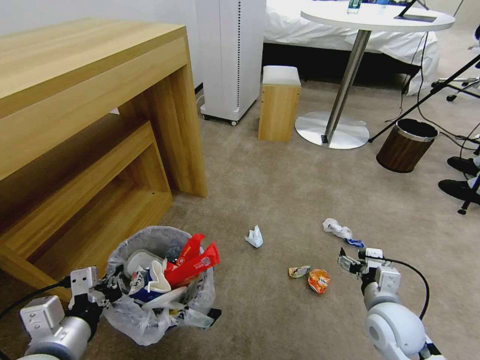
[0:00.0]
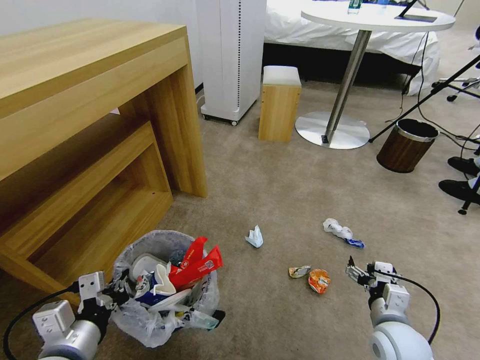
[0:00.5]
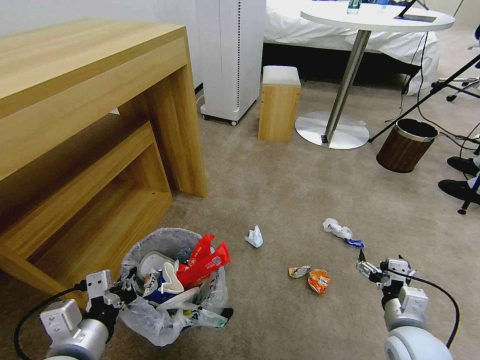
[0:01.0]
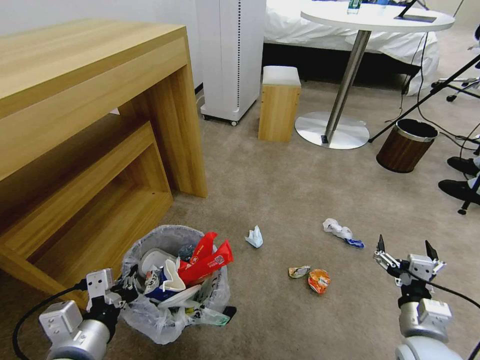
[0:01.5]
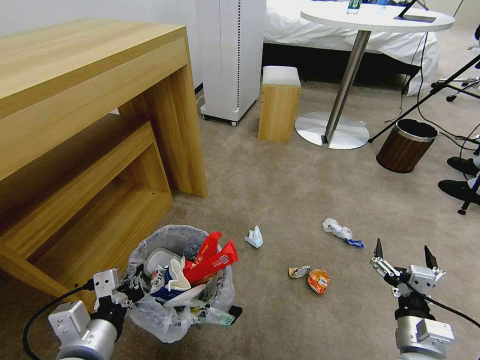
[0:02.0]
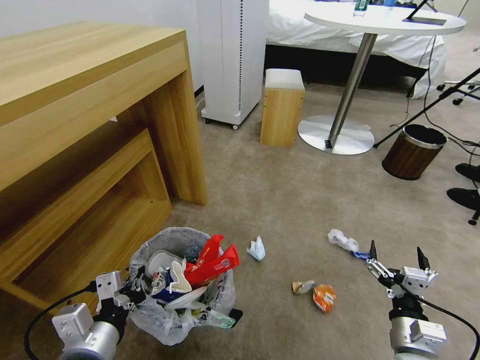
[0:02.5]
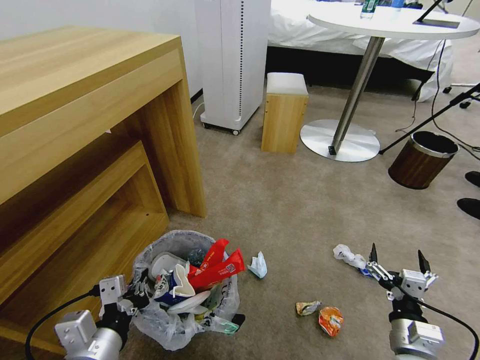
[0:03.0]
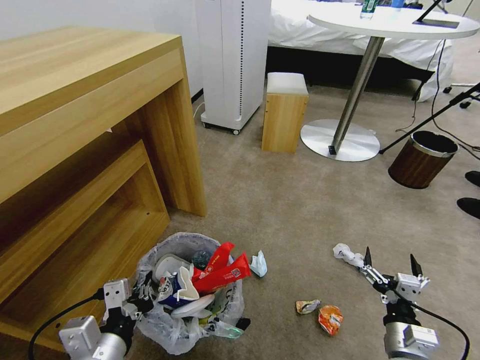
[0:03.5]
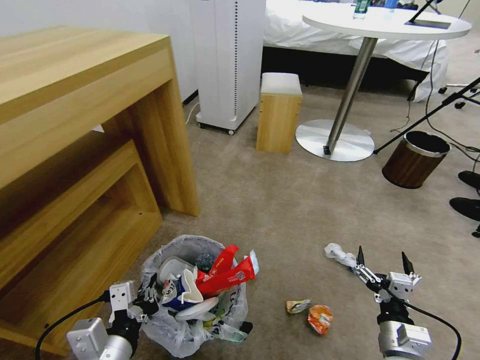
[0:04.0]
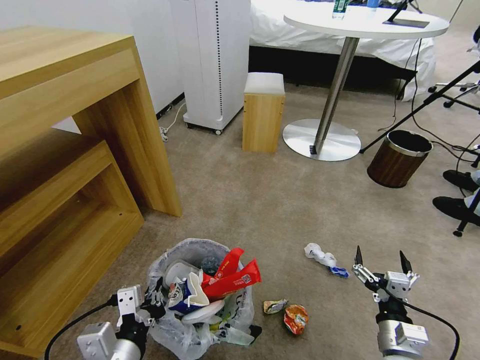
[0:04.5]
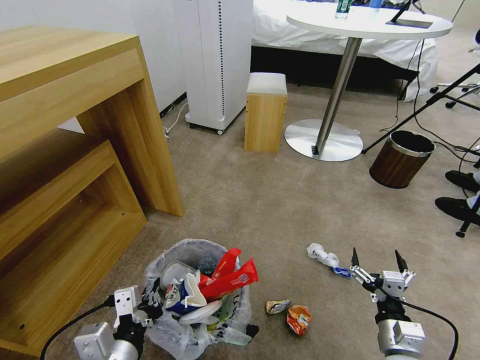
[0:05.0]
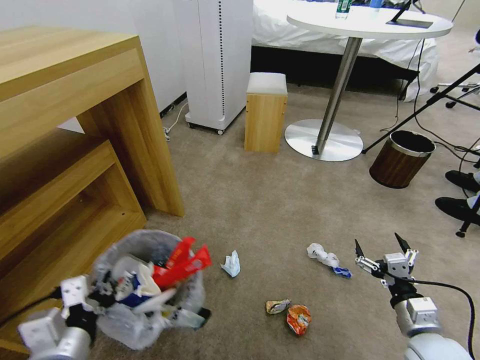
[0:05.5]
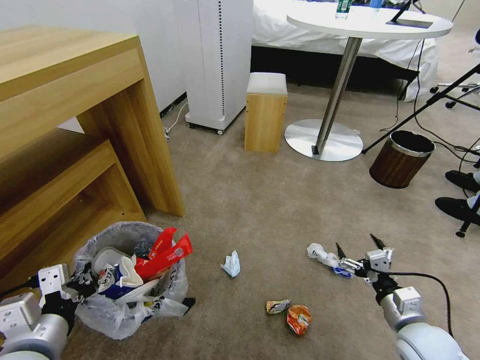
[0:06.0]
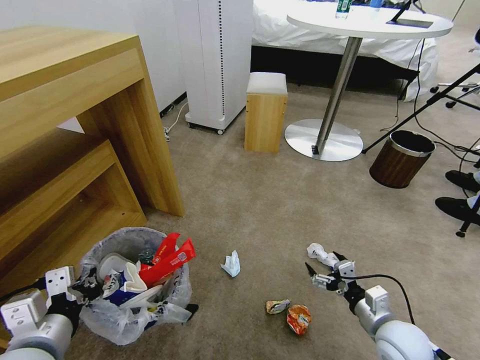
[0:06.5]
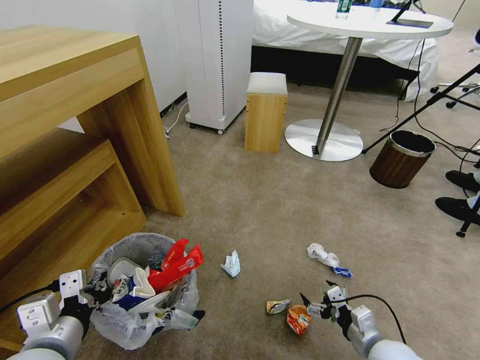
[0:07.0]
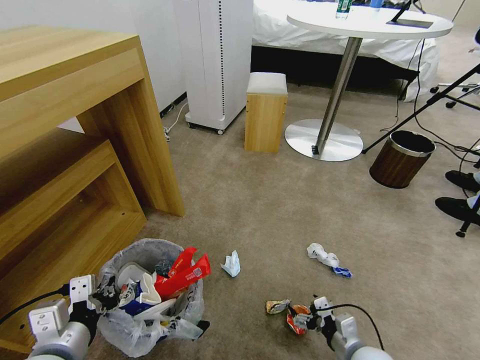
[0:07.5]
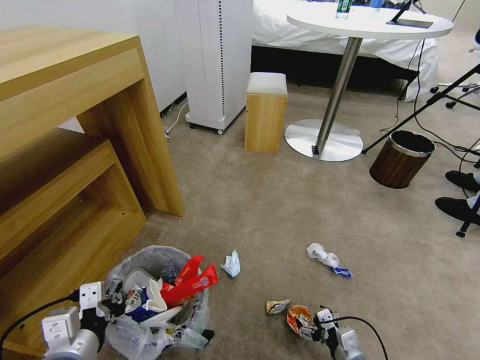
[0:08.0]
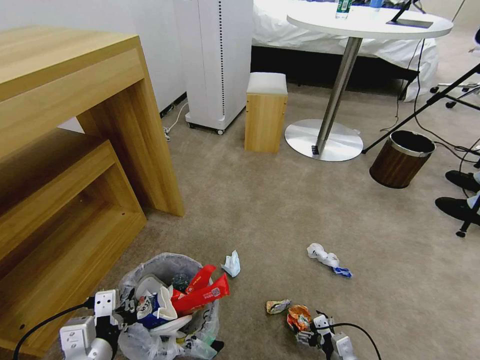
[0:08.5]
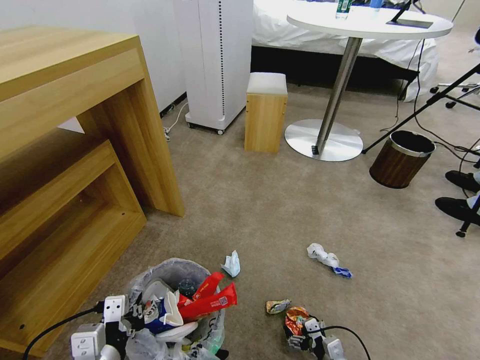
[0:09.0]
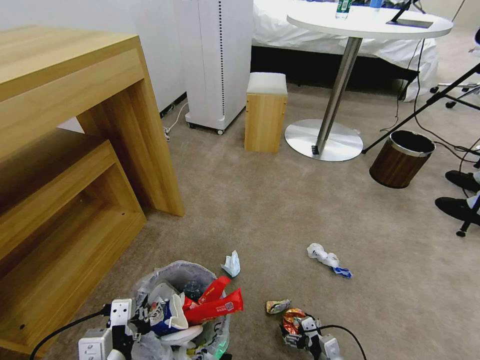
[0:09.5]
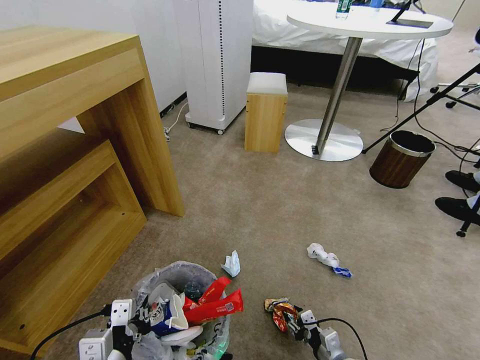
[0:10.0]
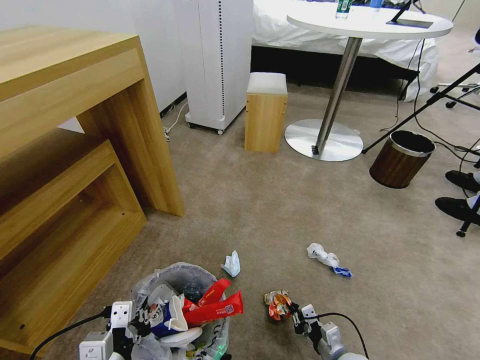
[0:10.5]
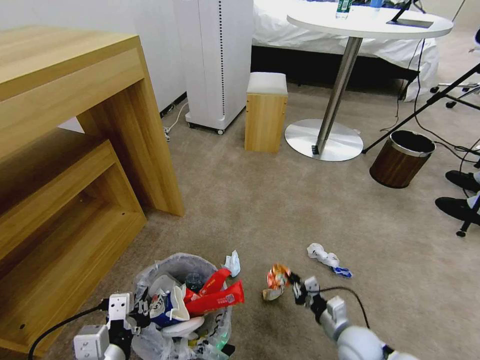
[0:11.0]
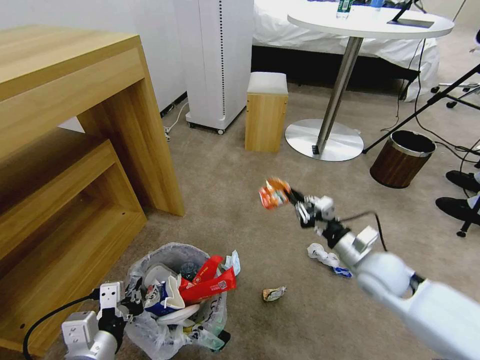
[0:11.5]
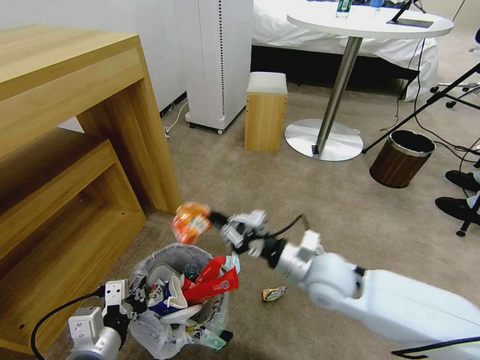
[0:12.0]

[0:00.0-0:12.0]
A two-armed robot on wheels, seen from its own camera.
Task of the whole recording: Pick up the trash bin and place the garbage on the floor into it.
0:00.0 to 0:02.0: The right gripper goes roughly 10 cm backward.
0:04.0 to 0:06.0: The left gripper heads to the left, covering about 10 cm; the right gripper moves forward, roughly 5 cm.
0:06.0 to 0:08.0: The right gripper is displaced downward by some 15 cm. The left gripper ends up about 5 cm from where it was.
0:08.0 to 0:10.0: The right gripper closes up. Meanwhile the left gripper moves about 5 cm.
0:10.0 to 0:12.0: The right gripper travels upward and forward by roughly 30 cm, and closes up.

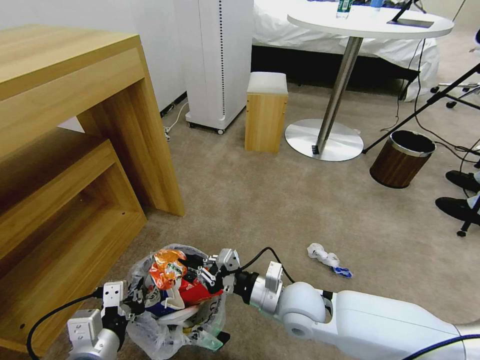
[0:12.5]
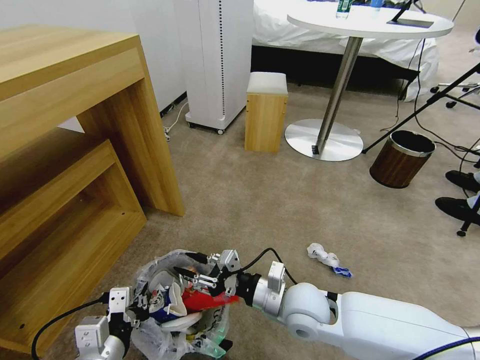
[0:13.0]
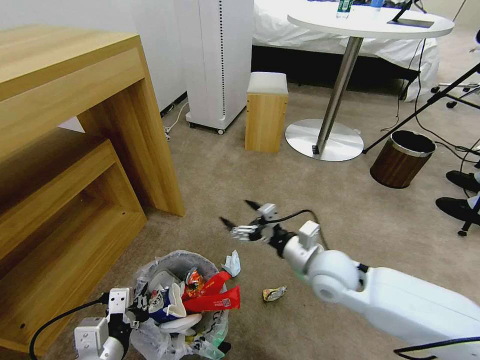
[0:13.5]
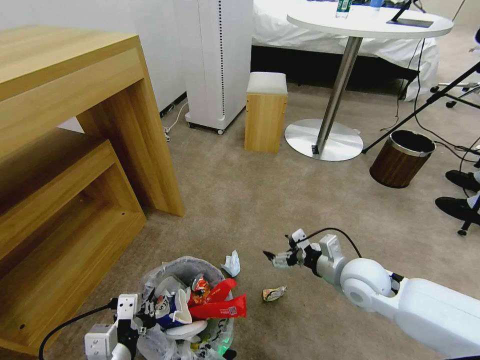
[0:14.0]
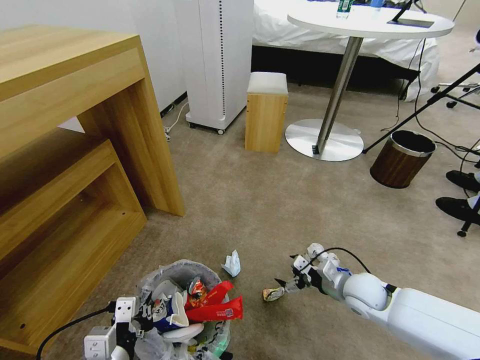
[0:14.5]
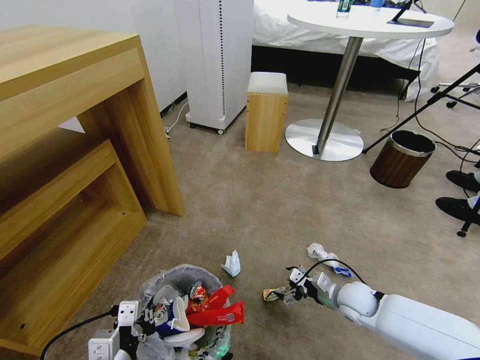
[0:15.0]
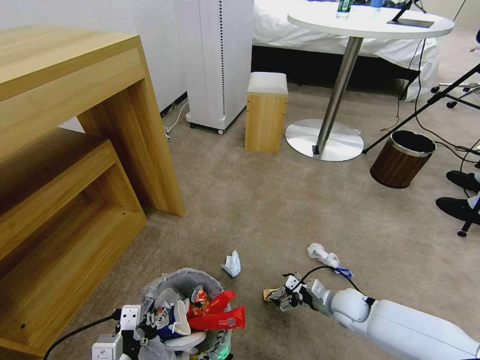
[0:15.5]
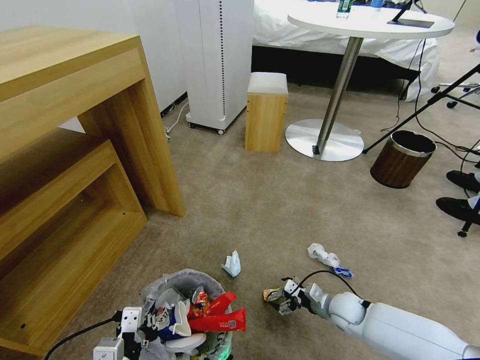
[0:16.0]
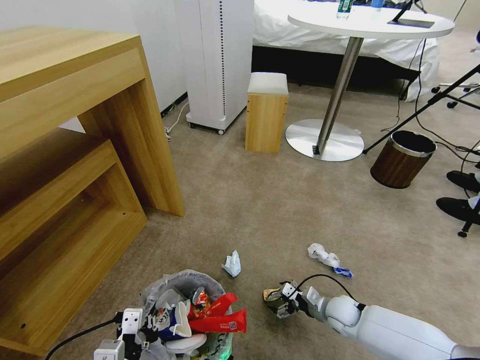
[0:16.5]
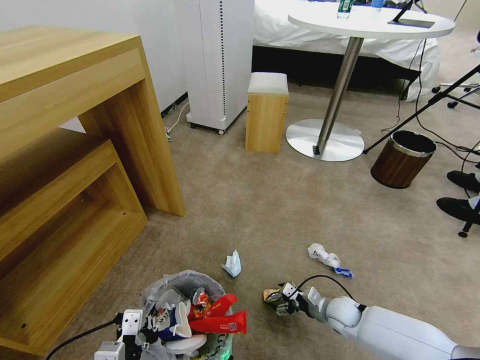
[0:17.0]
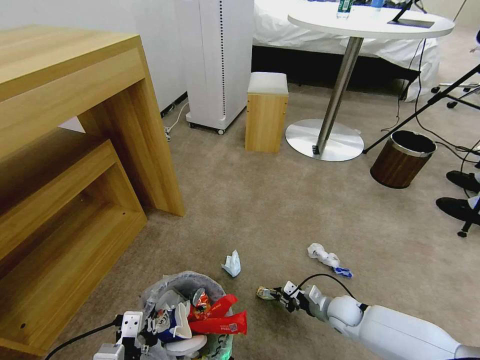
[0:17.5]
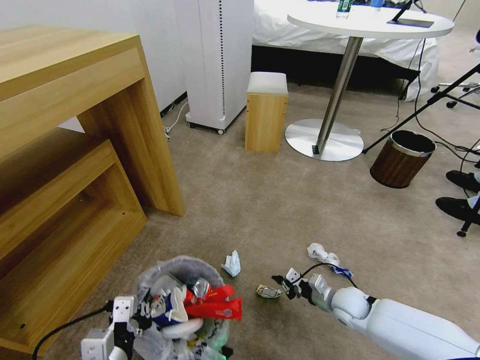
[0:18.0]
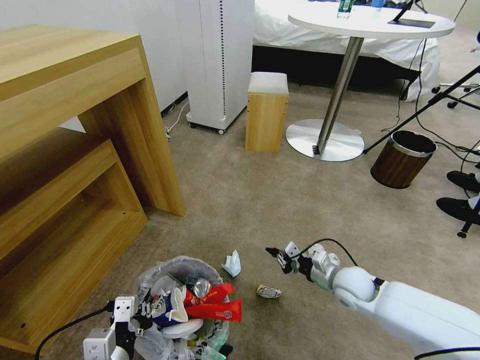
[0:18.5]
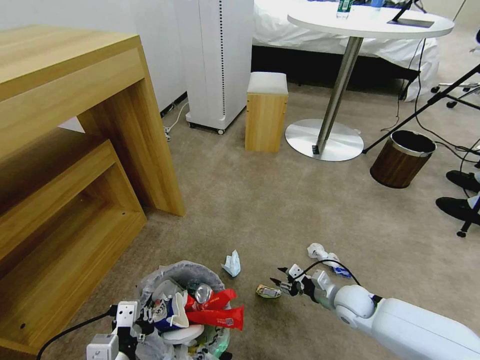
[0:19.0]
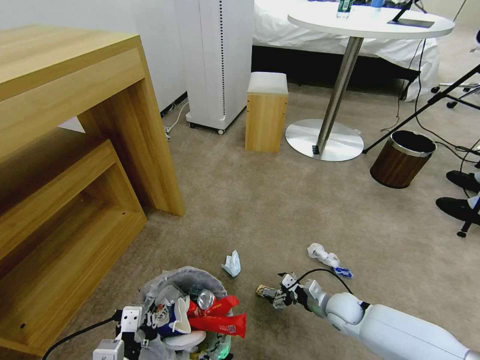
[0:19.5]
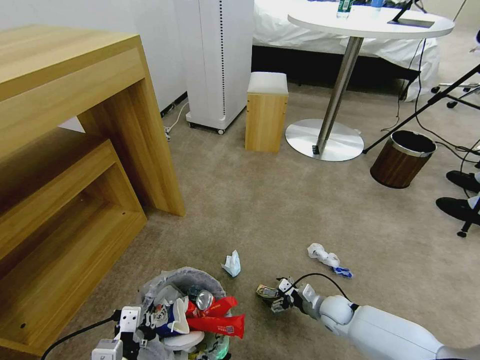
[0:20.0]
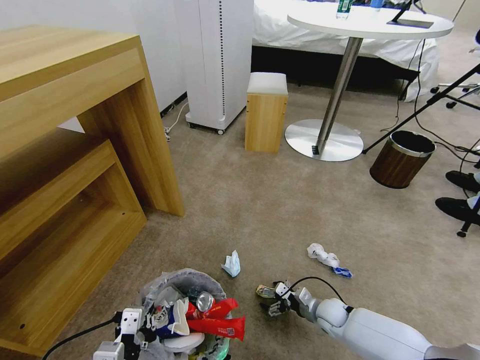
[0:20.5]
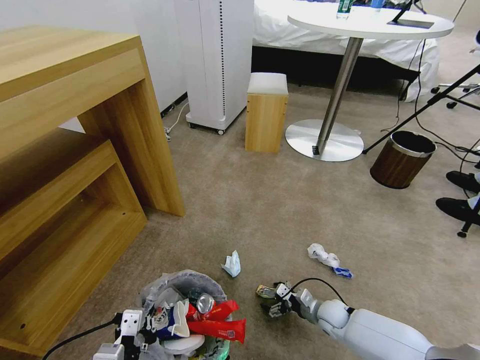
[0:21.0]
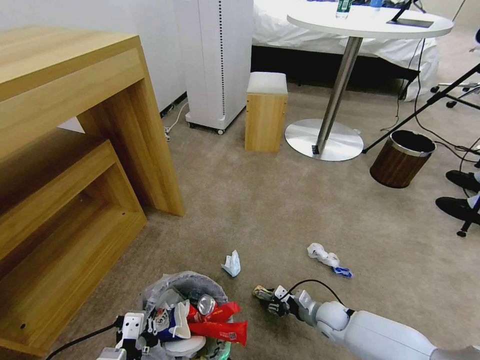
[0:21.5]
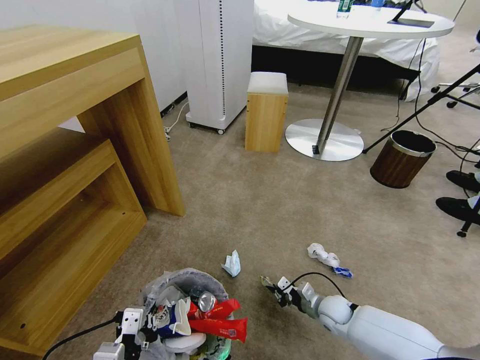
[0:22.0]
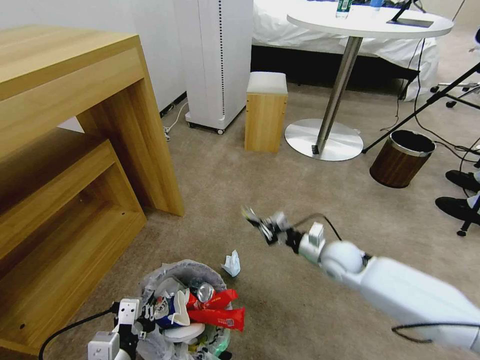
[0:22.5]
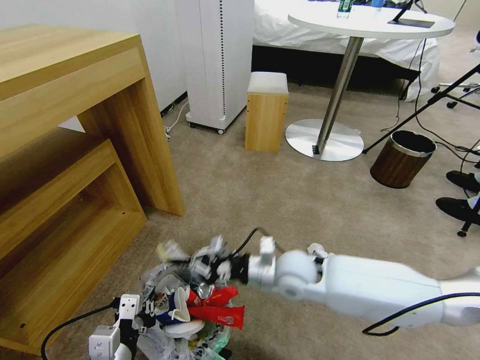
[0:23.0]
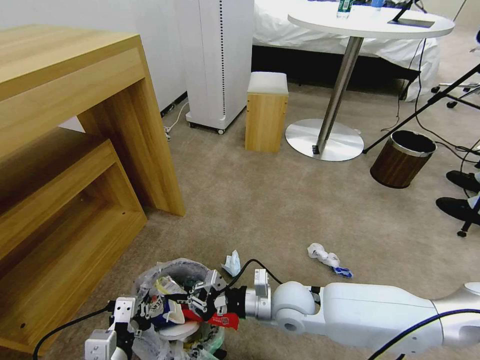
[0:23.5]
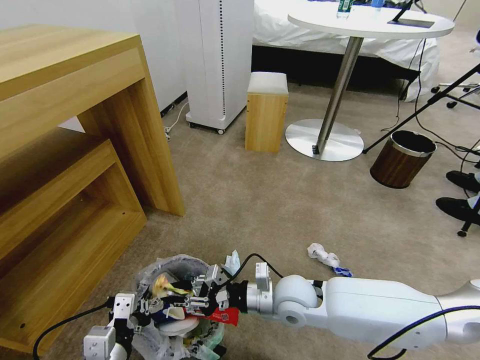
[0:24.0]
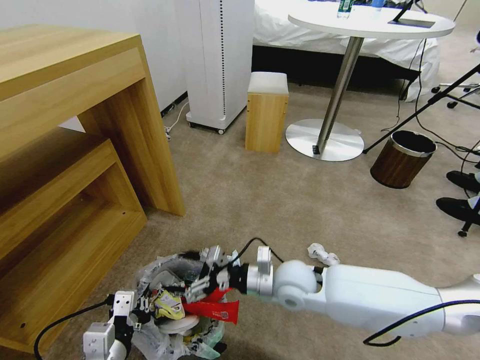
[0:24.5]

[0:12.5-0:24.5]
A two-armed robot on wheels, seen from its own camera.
Task of the whole recording: Pick up the trash bin and place the garbage on the floor into it.
0:12.5 to 0:14.5: The right gripper is displaced to the right by some 20 cm, and opens up.
0:14.5 to 0:16.5: The right gripper moves downward, approximately 15 cm.
0:16.5 to 0:18.5: The right gripper travels upward by roughly 15 cm, and closes up.
0:18.5 to 0:20.5: The right gripper heads downward, covering roughly 15 cm, and opens.
0:20.5 to 0:22.5: The right gripper goes roughly 20 cm upward, and closes its fingers.
0:22.5 to 0:24.5: The right gripper is displaced to the left and backward by about 15 cm, and opens up.

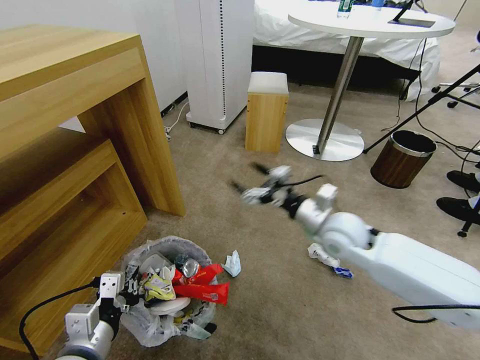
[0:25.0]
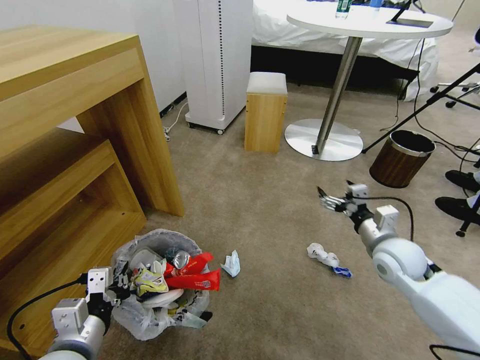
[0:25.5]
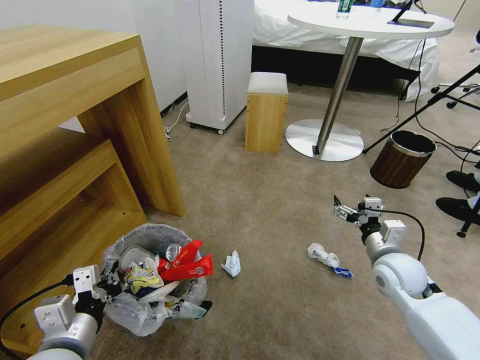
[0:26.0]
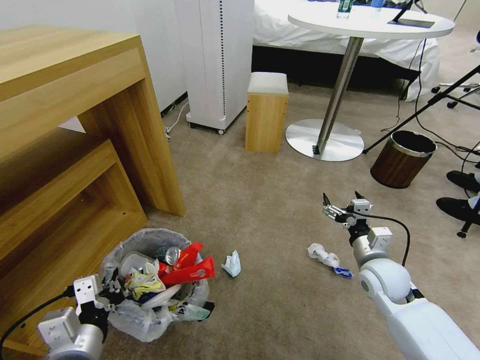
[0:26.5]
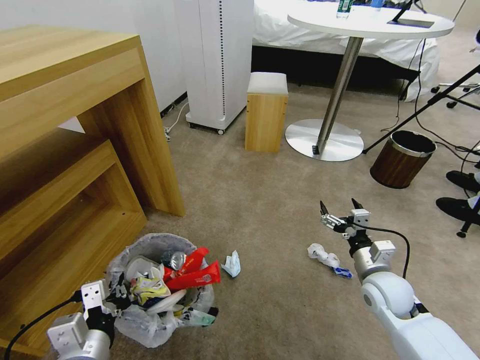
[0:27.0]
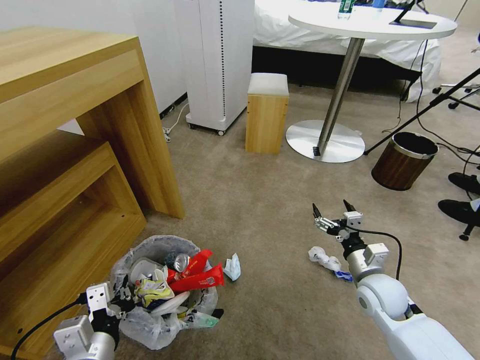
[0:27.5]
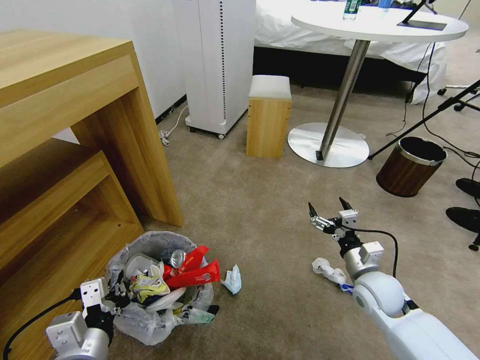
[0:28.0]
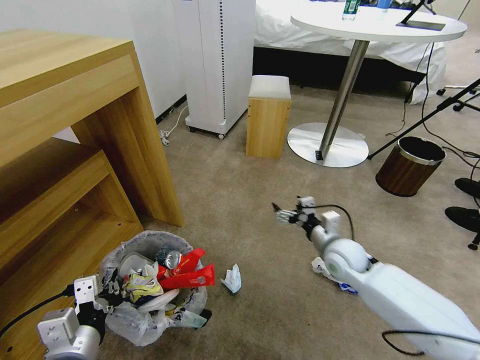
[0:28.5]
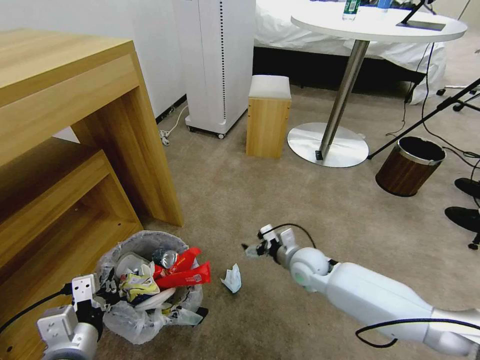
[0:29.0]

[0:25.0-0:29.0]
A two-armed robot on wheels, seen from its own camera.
Task of the whole recording: Pick up the trash bin and place the garbage on the floor into it.
0:25.0 to 0:27.0: The right gripper shifts roughly 20 cm to the right, downward and backward.
0:27.0 to 0:29.0: The right gripper shifts approximately 15 cm to the left and forward.
